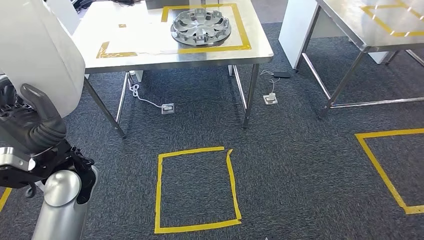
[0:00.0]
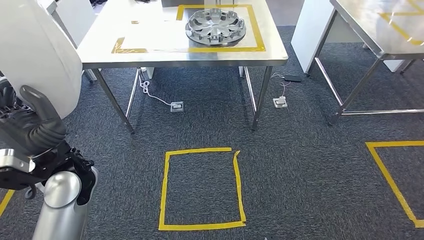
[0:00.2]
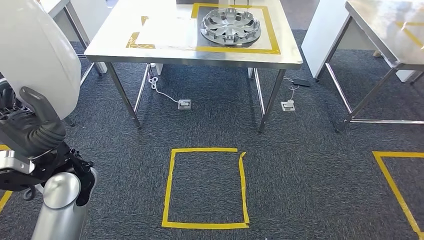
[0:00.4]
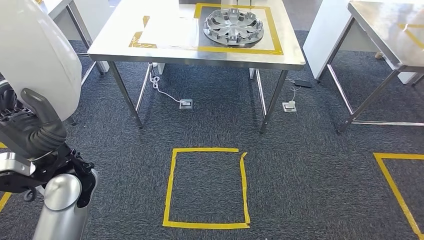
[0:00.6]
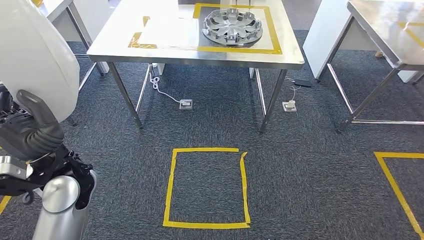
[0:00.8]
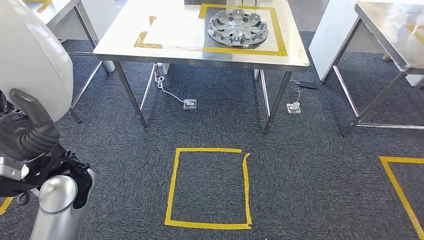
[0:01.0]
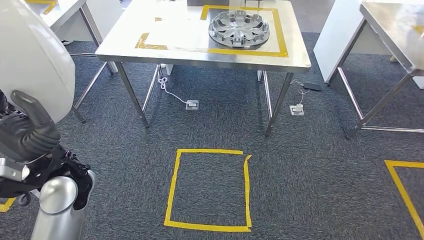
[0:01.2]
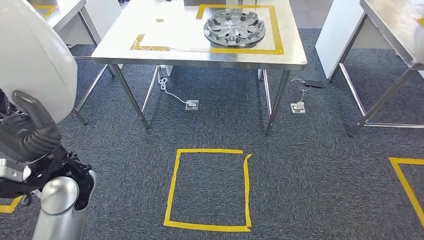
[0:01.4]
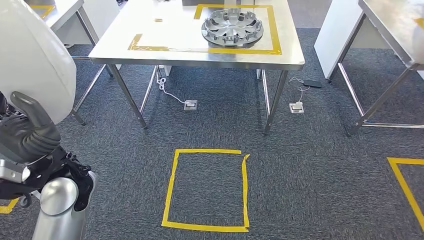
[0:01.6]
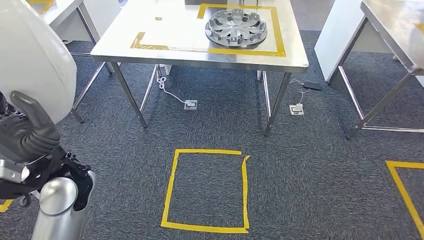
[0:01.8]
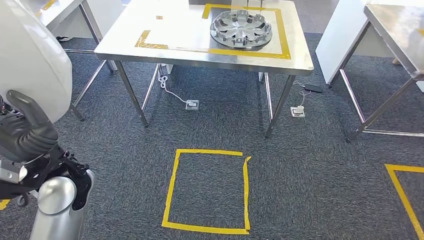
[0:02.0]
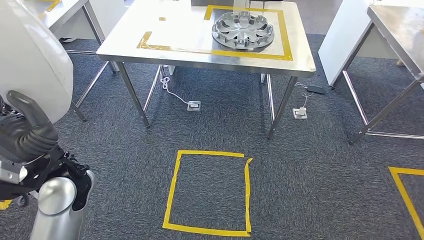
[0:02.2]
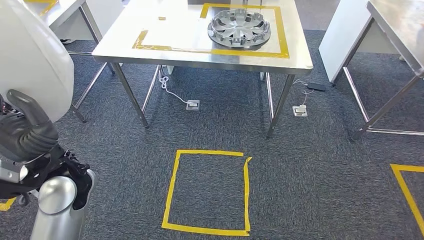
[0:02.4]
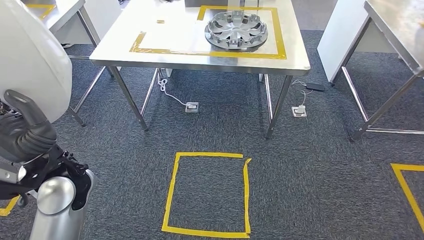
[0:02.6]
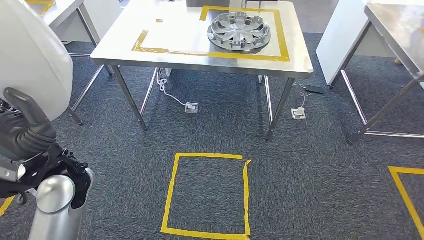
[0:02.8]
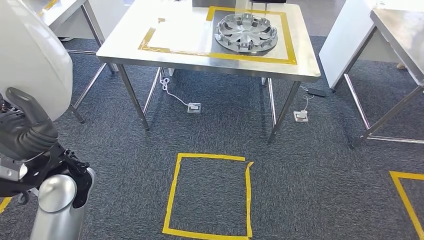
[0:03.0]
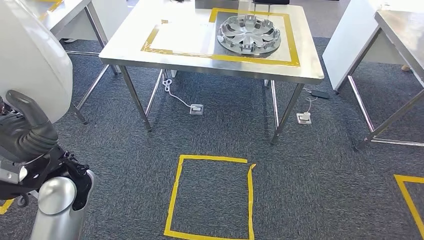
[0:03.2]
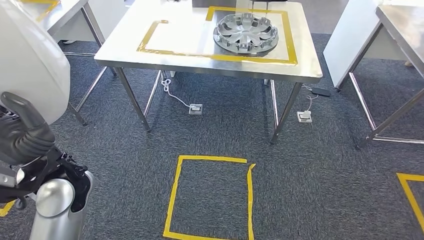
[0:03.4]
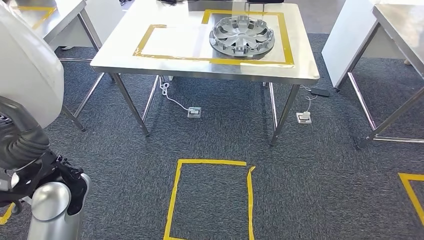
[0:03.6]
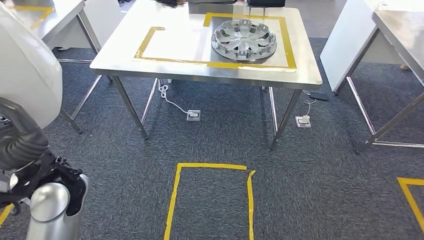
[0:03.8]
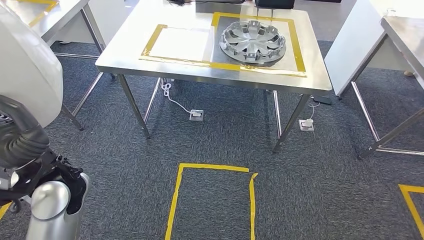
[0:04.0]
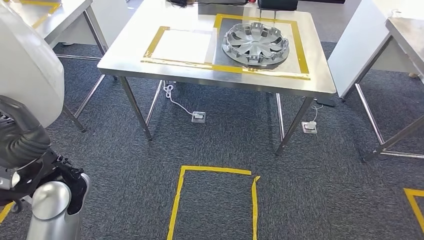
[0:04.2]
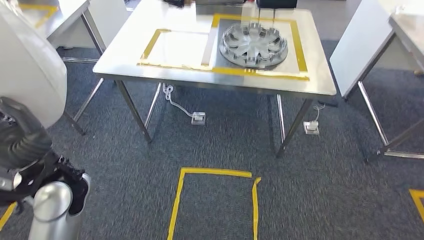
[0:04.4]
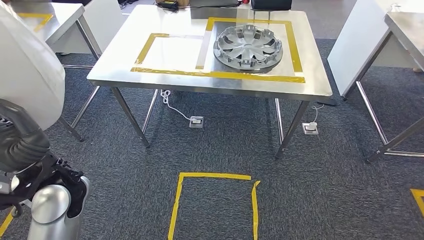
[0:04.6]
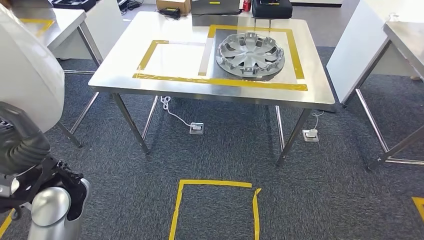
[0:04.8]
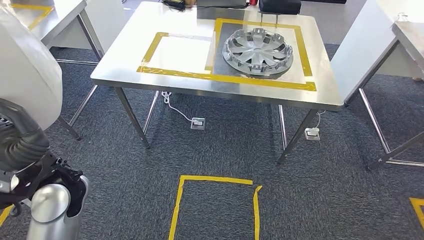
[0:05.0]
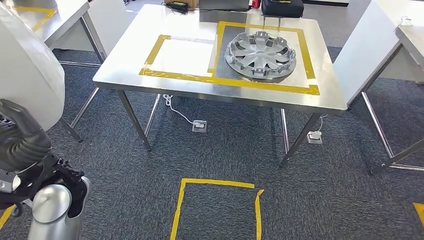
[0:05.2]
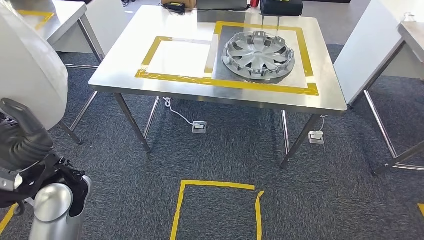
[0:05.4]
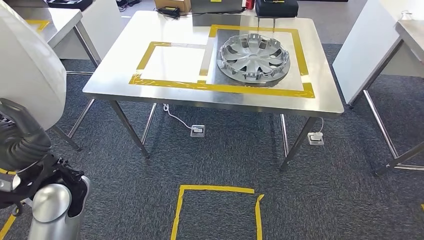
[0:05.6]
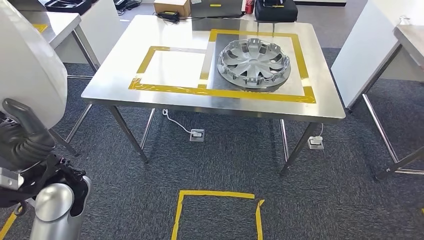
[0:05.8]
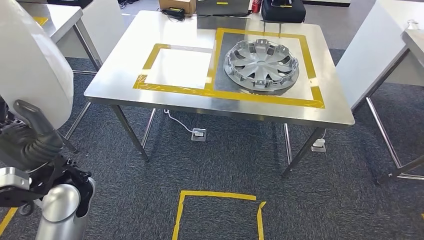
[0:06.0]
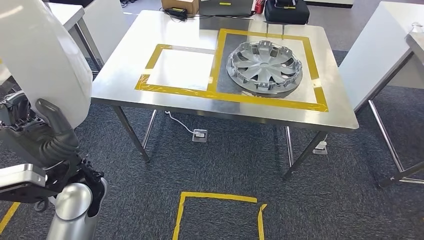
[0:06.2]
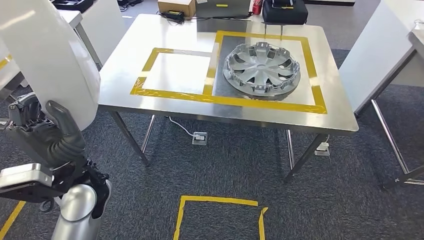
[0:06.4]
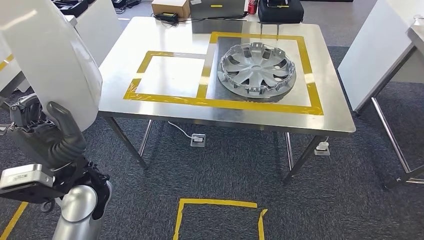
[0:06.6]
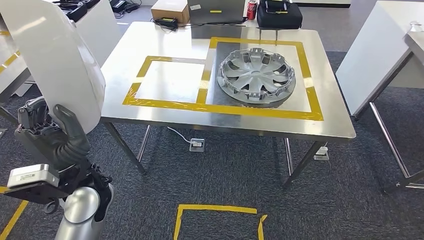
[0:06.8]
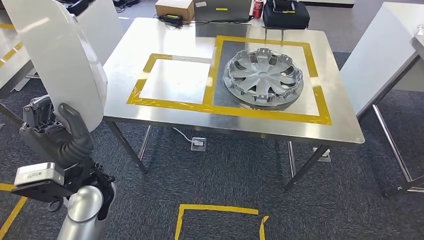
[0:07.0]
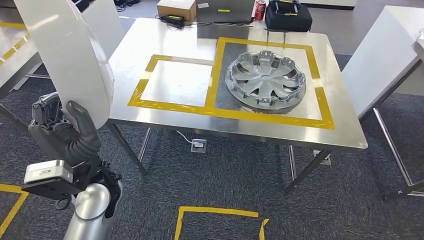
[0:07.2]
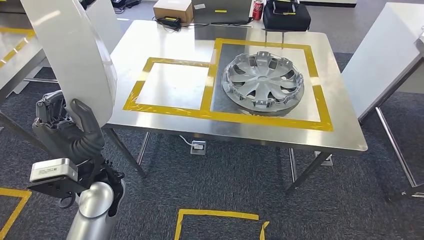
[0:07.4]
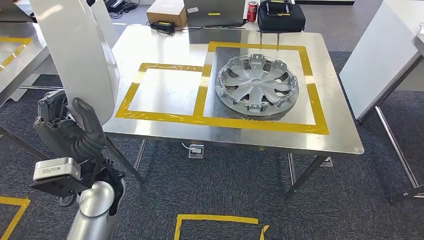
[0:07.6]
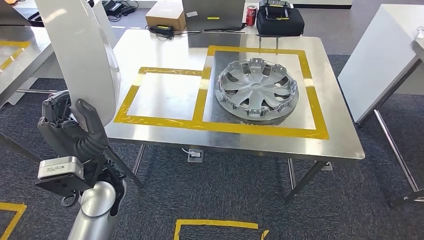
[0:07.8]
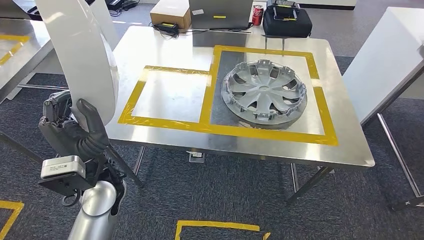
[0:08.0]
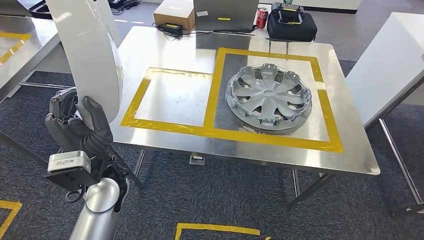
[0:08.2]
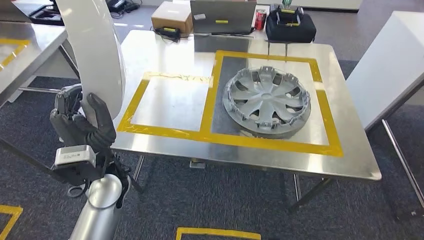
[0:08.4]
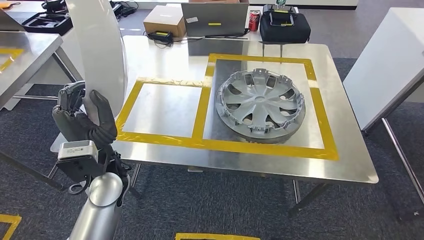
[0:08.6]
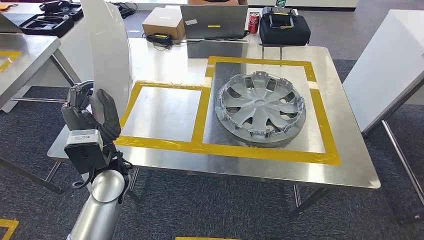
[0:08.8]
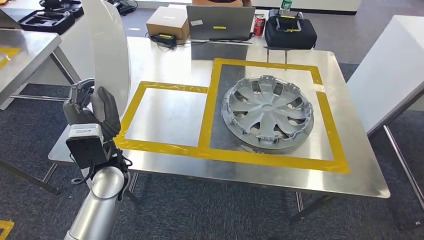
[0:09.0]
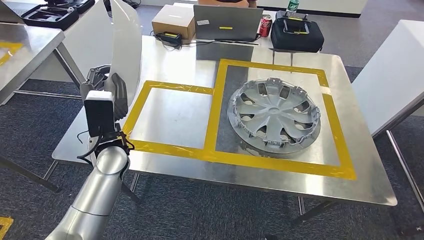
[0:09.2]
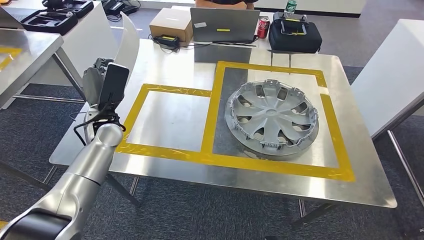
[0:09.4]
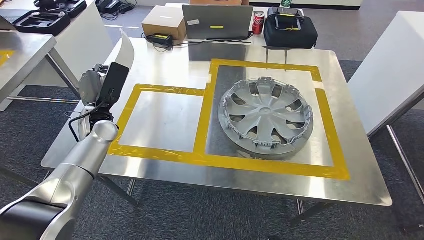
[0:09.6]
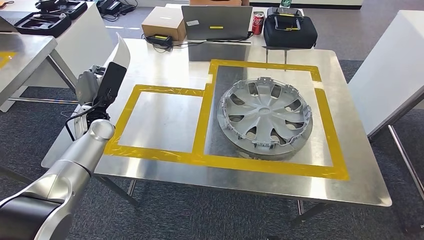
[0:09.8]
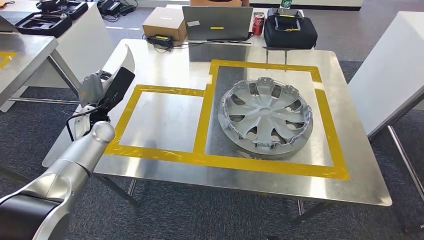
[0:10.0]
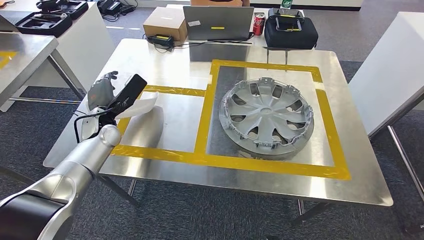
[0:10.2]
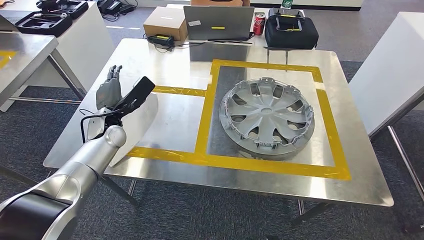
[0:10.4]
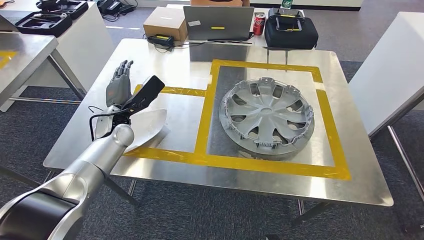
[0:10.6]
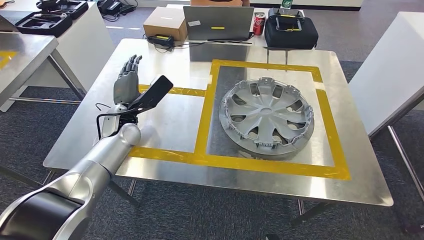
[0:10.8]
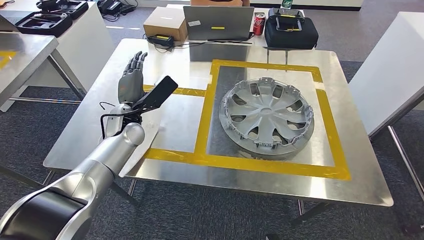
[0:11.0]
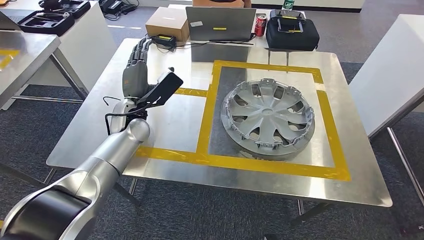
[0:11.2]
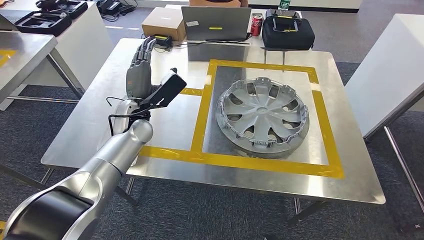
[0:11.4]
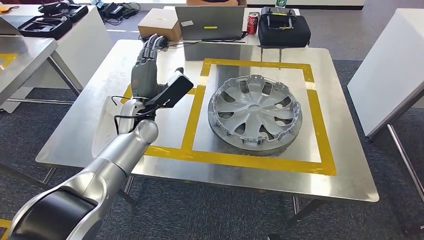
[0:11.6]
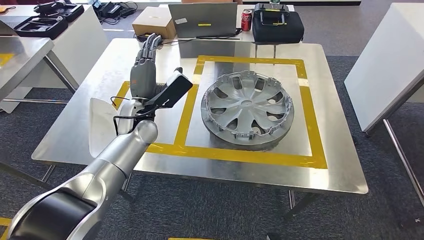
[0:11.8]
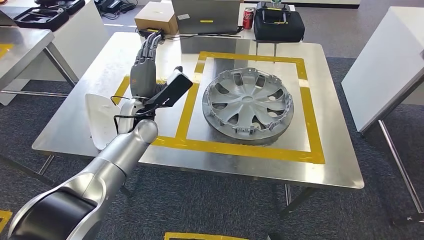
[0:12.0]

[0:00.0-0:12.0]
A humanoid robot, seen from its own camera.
Step, 0:00.0 to 0:08.2: Move the large material to the workbench.

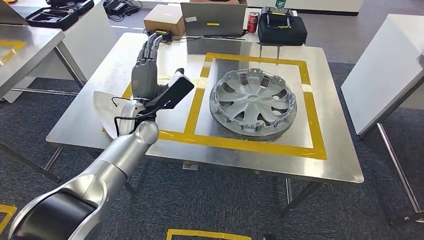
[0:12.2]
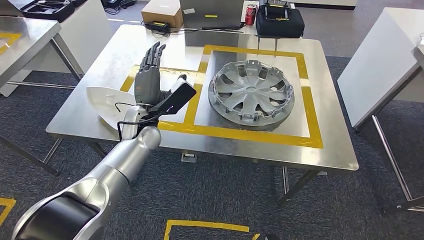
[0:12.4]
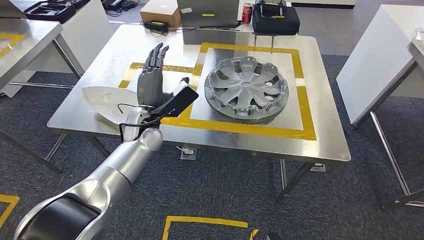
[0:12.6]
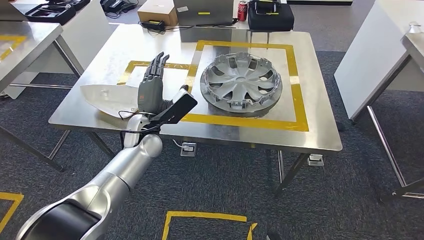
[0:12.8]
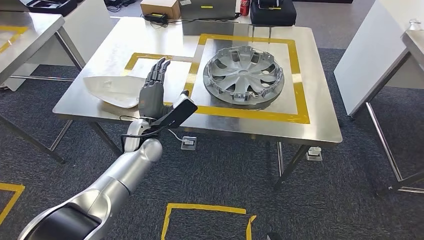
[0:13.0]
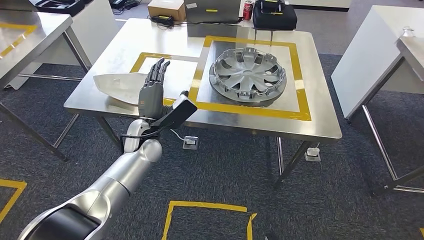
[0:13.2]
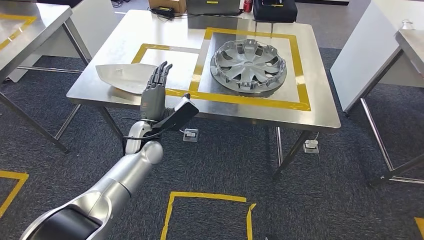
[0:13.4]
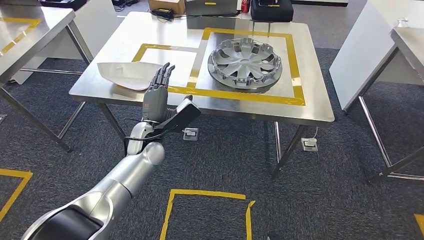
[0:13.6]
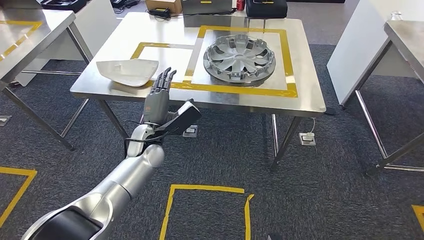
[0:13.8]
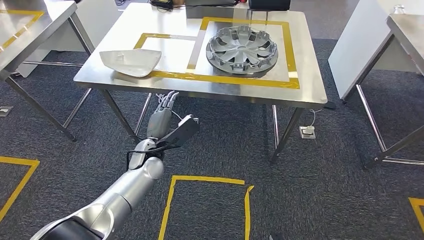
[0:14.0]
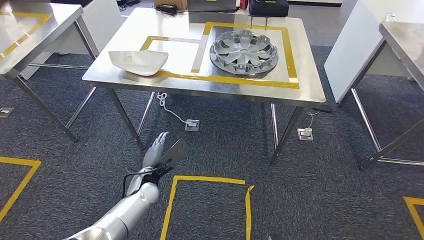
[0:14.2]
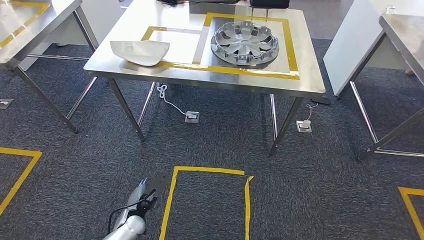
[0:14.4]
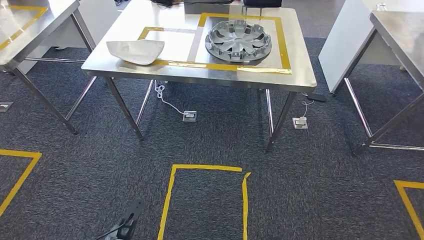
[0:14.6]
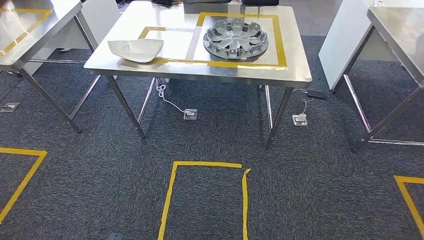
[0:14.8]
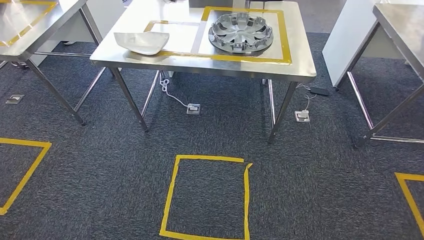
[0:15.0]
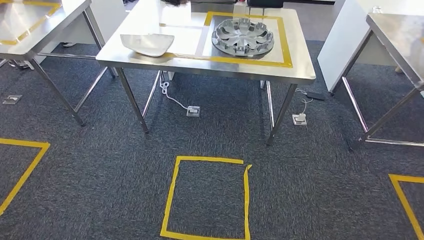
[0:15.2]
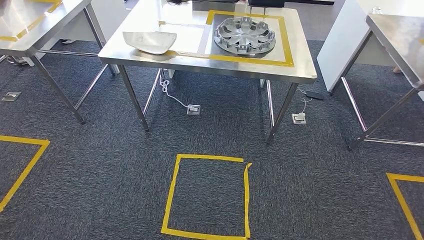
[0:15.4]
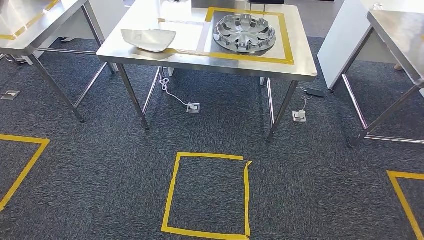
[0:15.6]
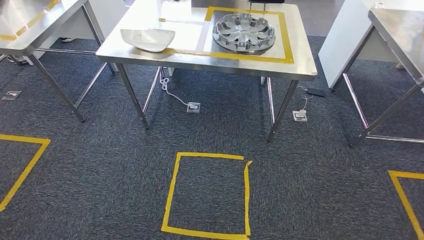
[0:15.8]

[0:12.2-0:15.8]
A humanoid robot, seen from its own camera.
Step, 0:12.8 to 0:15.8: Move to the initial position of the shelf.
